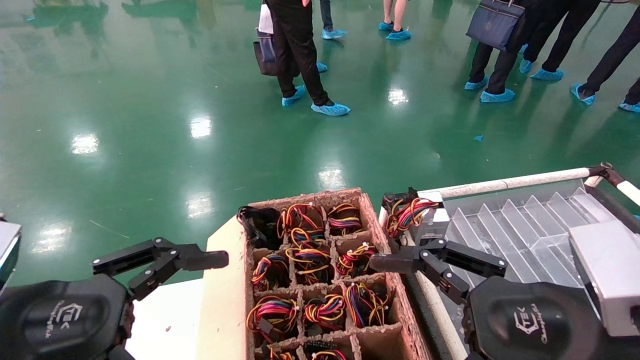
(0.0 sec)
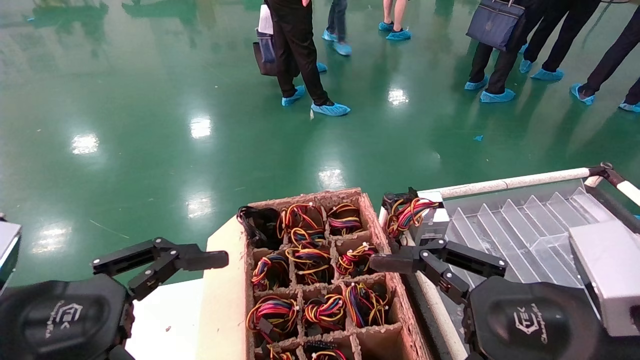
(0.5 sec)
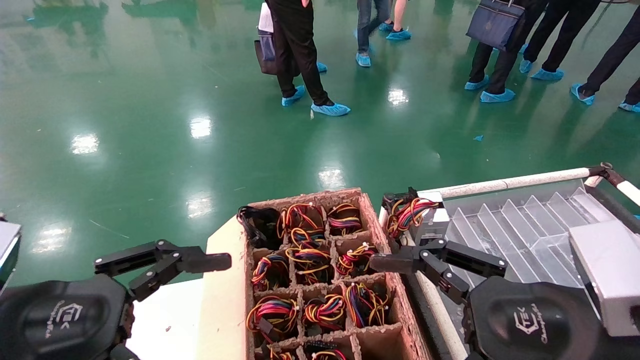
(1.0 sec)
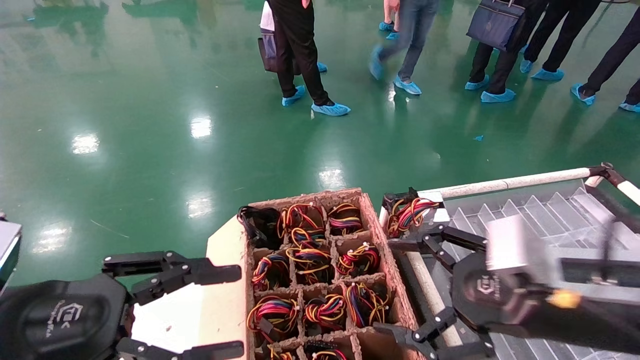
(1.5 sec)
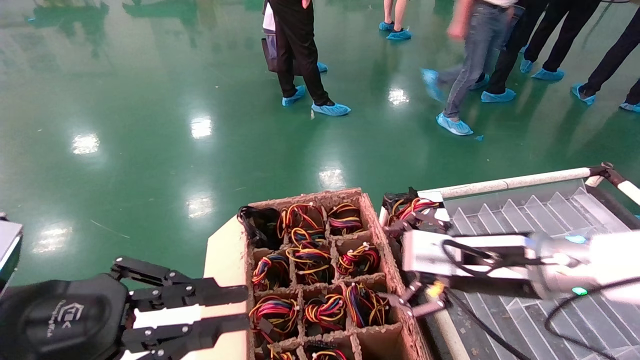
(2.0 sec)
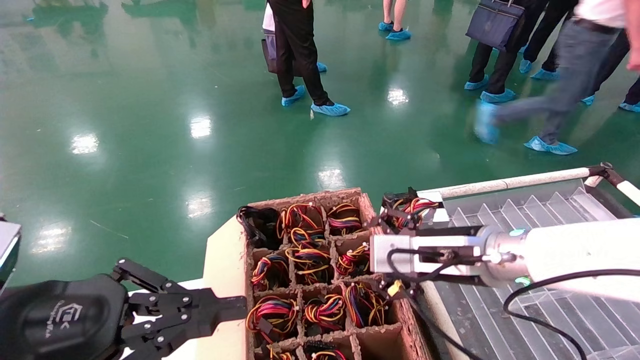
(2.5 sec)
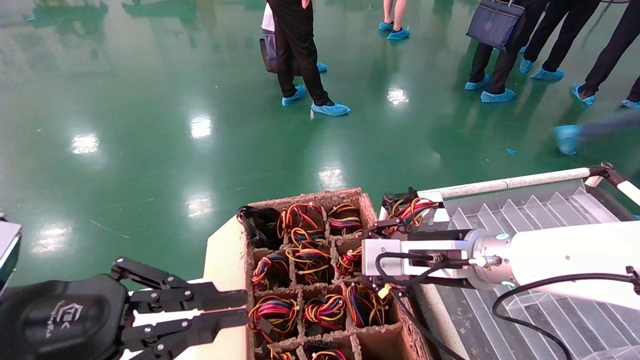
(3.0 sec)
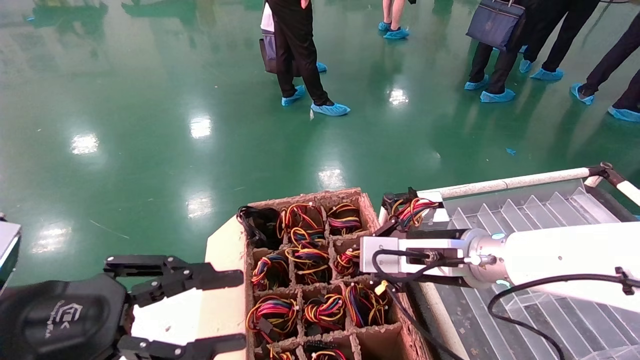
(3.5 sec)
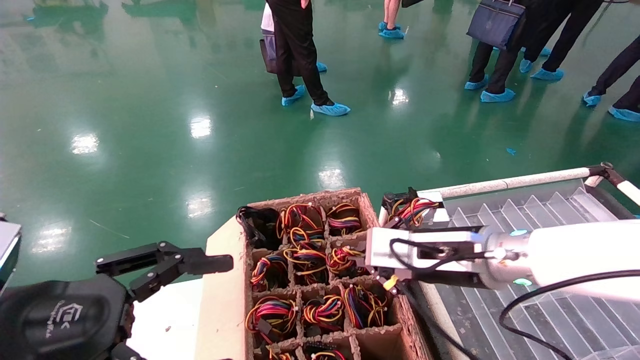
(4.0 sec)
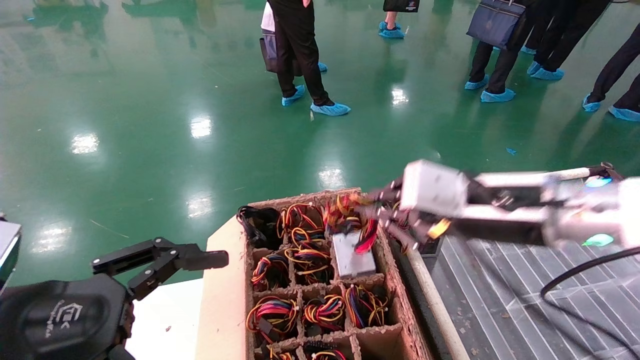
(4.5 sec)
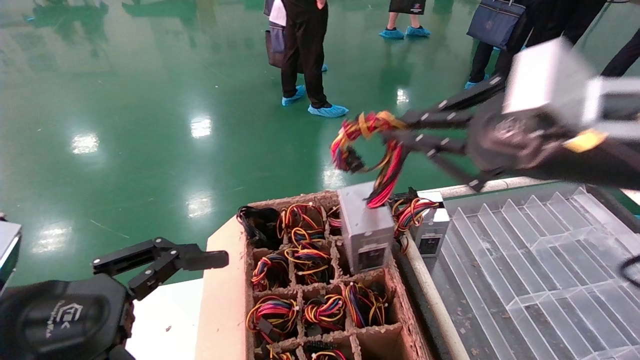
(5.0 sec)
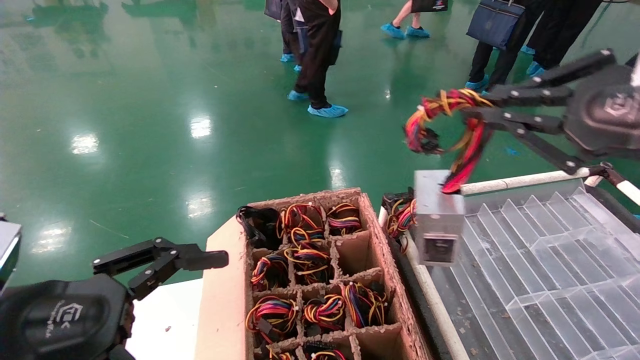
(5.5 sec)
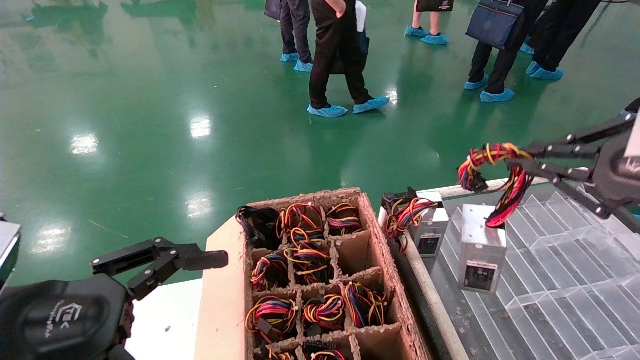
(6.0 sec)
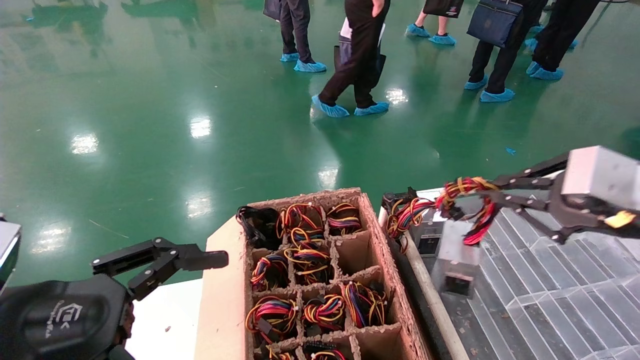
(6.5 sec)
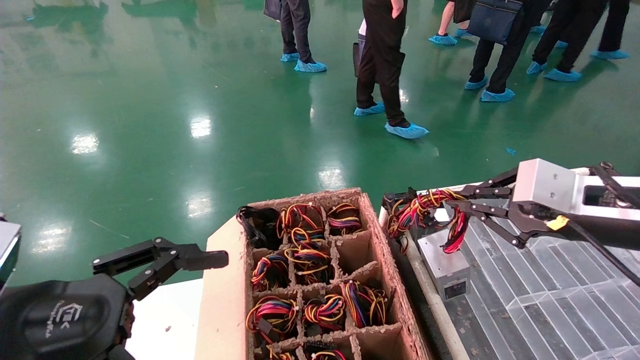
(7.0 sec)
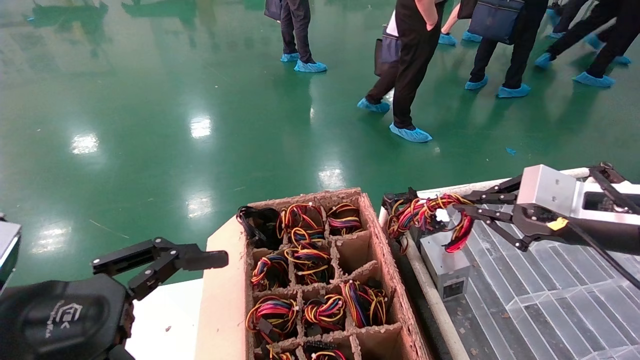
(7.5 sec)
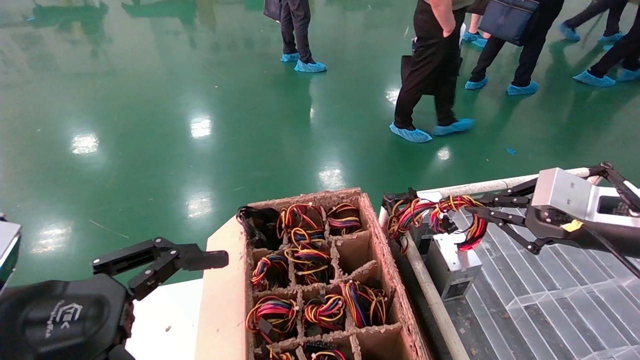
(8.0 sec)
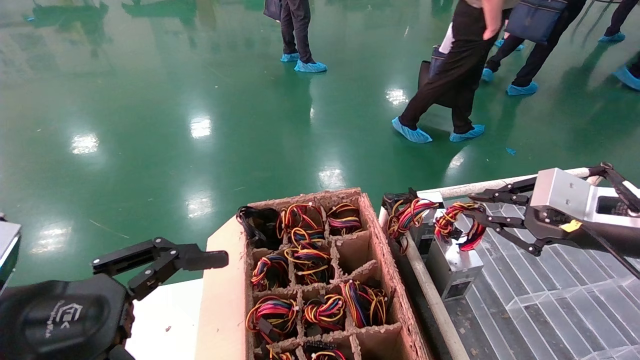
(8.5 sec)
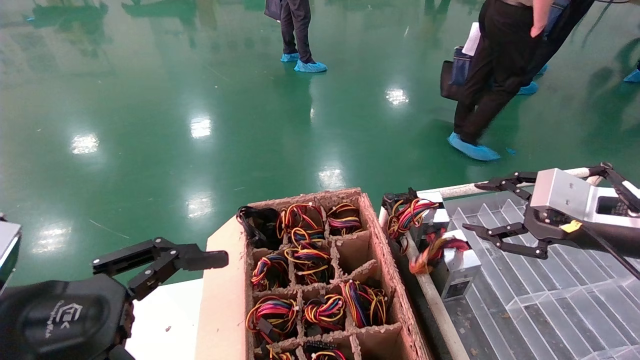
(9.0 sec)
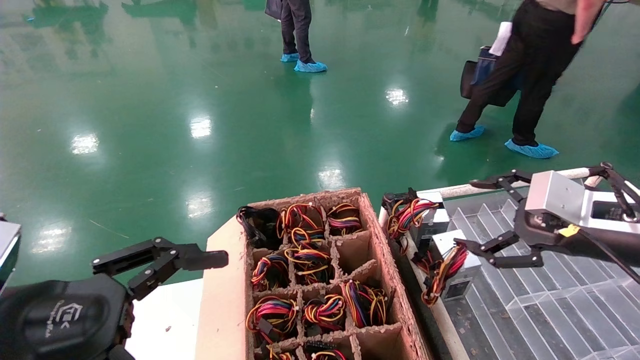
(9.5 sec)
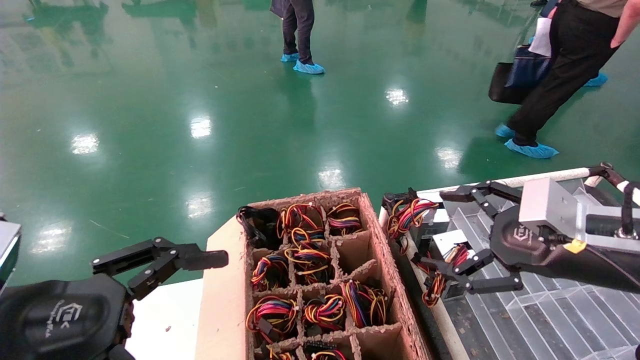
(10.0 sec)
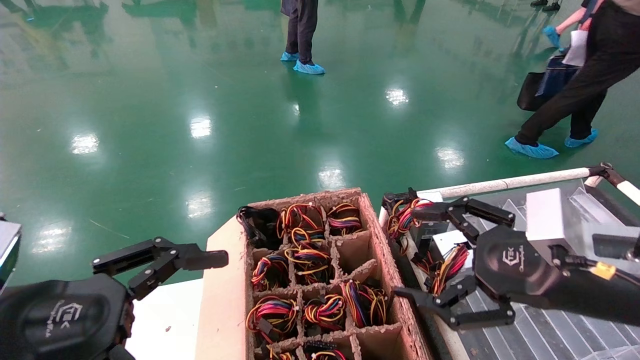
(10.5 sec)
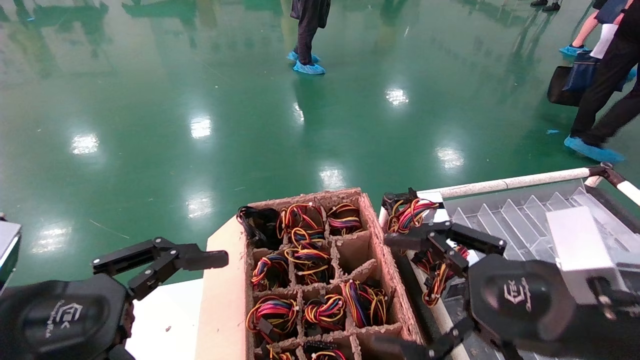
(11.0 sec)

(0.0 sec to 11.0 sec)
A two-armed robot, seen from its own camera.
Step, 1.5 sec - 3.5 sec: Grab and lift the power supply from the large box.
Step, 4.0 sec - 8.0 sec: Place the power supply on the operating table.
0.0 sec - 2.0 sec: The right gripper moves forward, roughly 15 cm, while the left gripper closes up.
2.0 sec - 3.5 sec: The right gripper shifts by about 5 cm, and closes its fingers.
3.5 sec - 5.5 sec: The left gripper opens its fingers. The right gripper is displaced upward, backward and to the right by about 25 cm.
5.5 sec - 7.5 sec: The right gripper heads forward and downward, covering about 15 cm.
7.5 sec - 9.0 sec: The right gripper opens up.
9.0 sec - 11.0 sec: The right gripper is displaced to the left and backward by approximately 15 cm, and opens its fingers.
